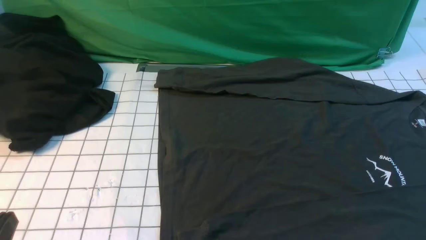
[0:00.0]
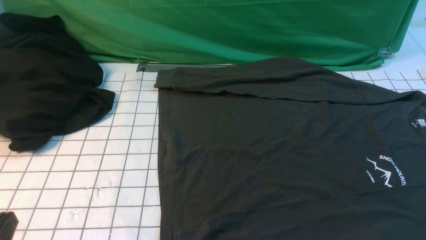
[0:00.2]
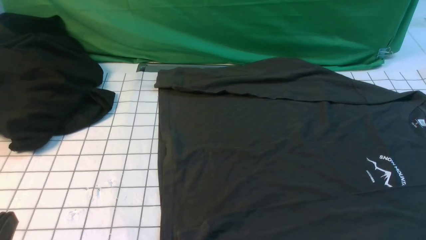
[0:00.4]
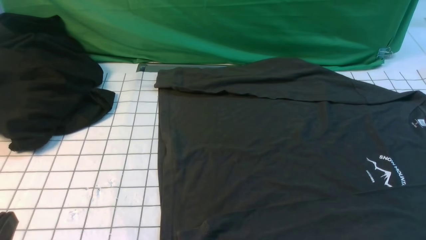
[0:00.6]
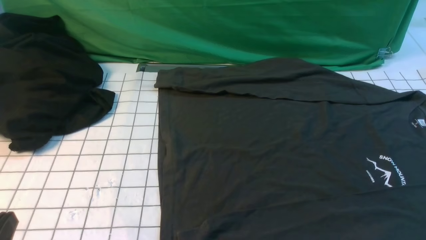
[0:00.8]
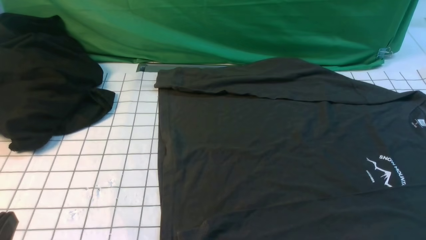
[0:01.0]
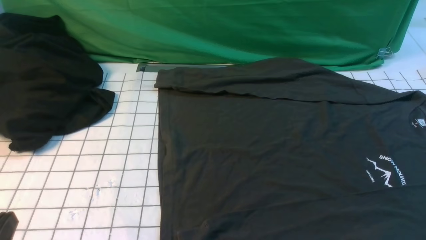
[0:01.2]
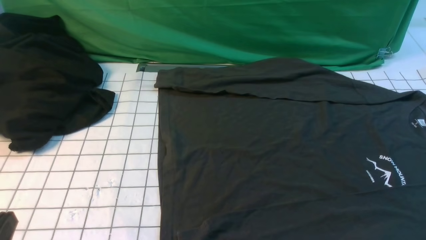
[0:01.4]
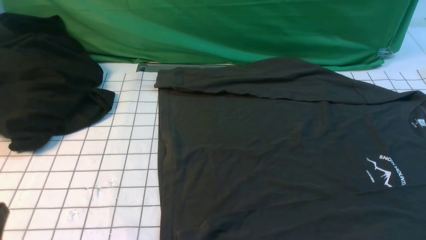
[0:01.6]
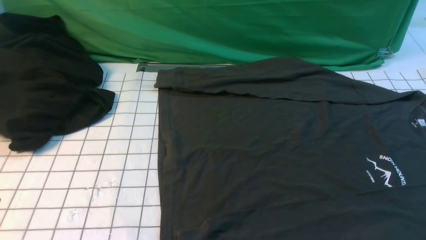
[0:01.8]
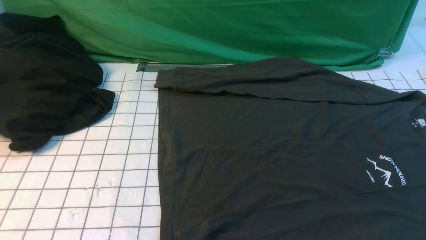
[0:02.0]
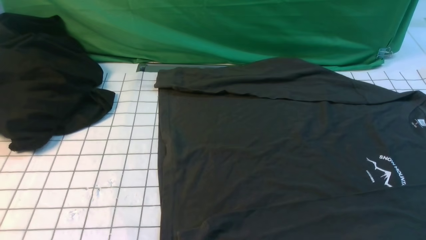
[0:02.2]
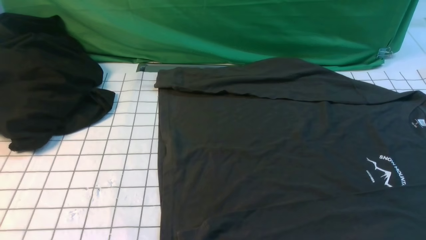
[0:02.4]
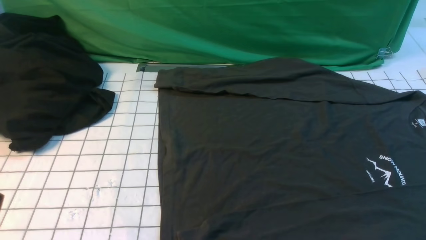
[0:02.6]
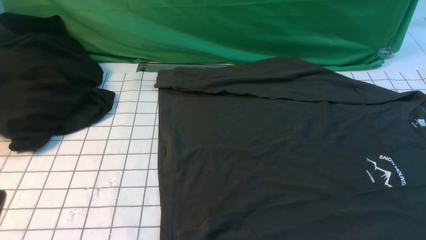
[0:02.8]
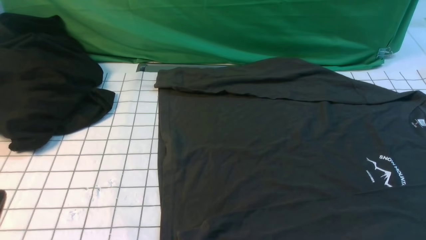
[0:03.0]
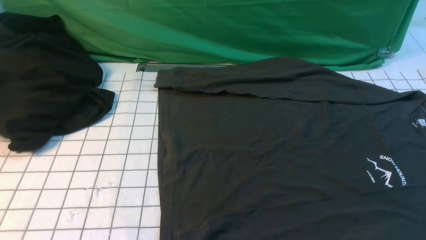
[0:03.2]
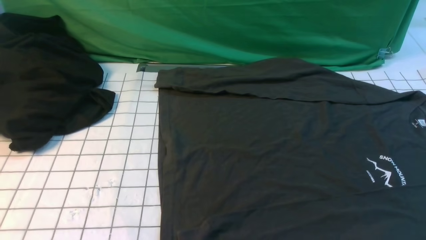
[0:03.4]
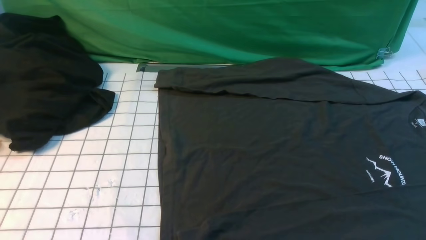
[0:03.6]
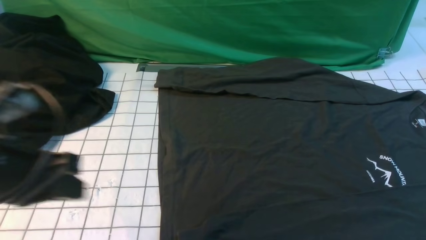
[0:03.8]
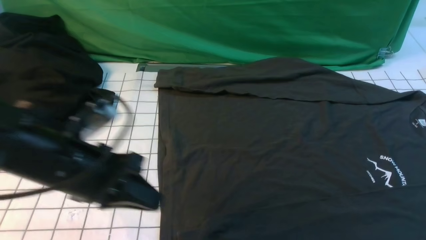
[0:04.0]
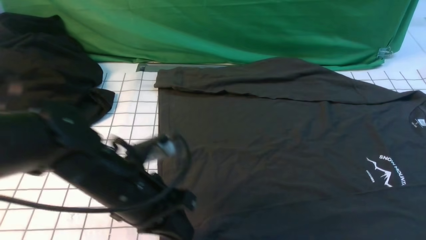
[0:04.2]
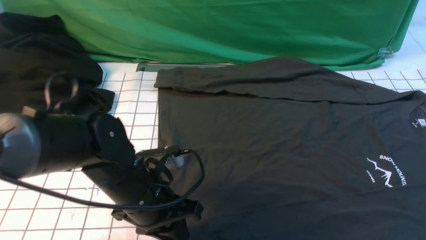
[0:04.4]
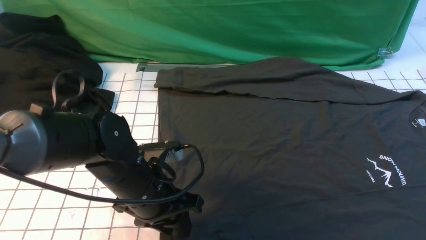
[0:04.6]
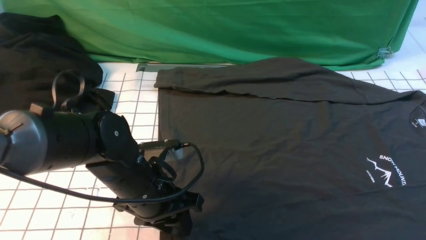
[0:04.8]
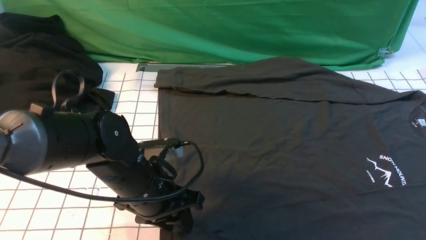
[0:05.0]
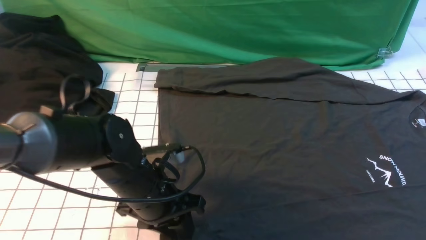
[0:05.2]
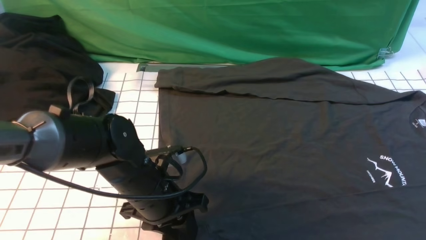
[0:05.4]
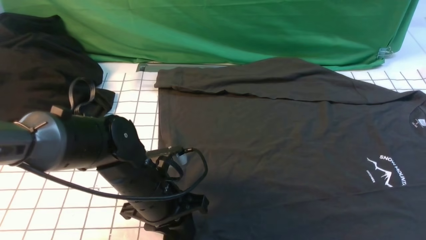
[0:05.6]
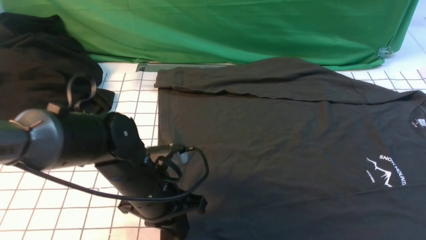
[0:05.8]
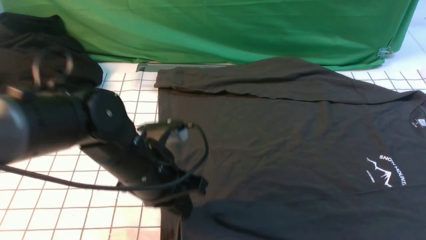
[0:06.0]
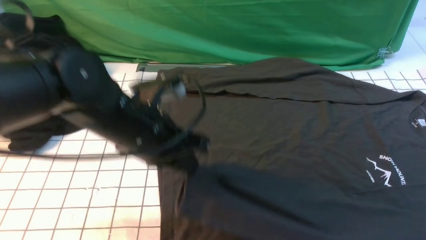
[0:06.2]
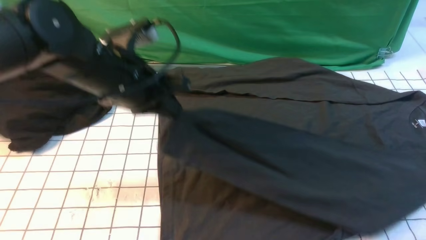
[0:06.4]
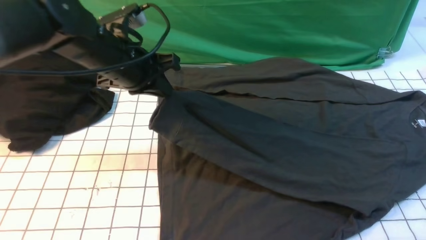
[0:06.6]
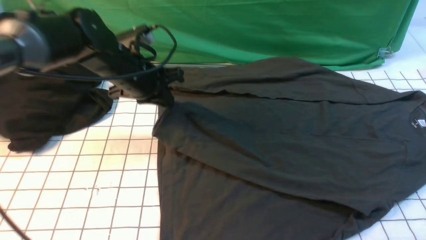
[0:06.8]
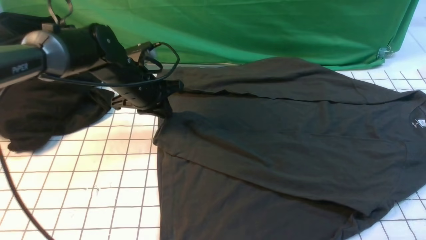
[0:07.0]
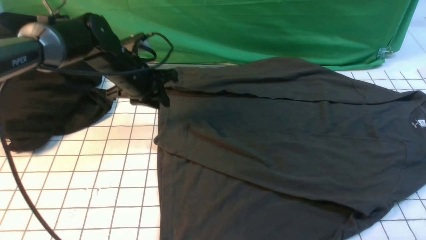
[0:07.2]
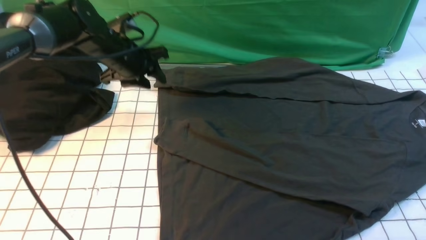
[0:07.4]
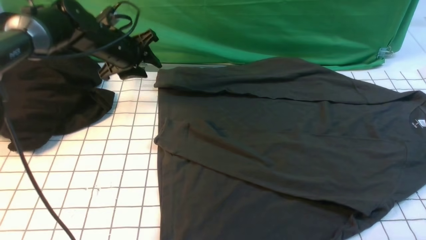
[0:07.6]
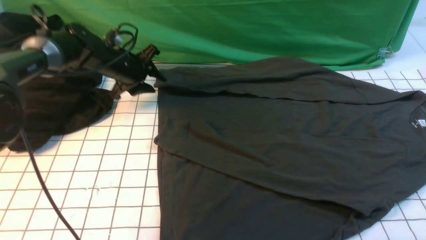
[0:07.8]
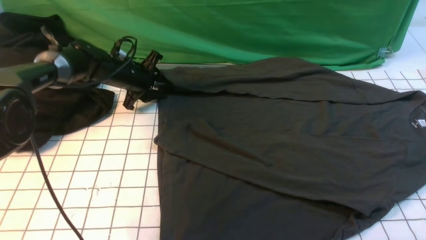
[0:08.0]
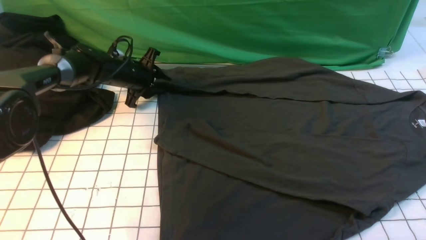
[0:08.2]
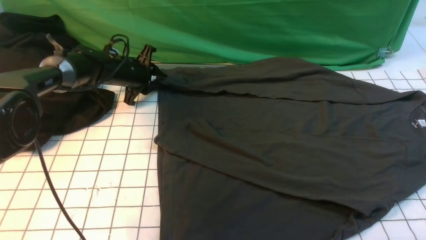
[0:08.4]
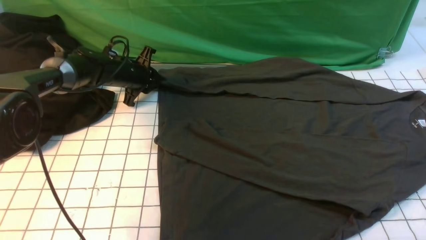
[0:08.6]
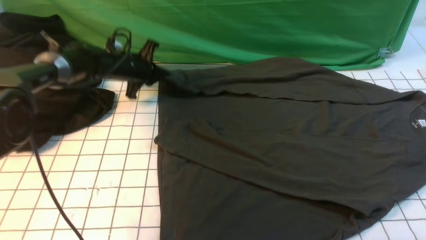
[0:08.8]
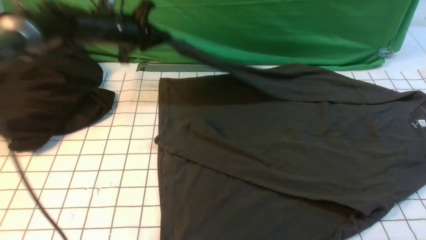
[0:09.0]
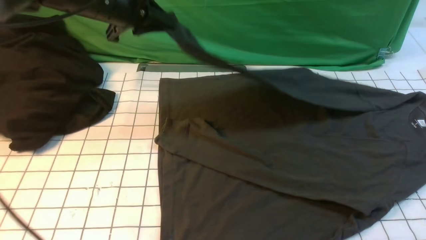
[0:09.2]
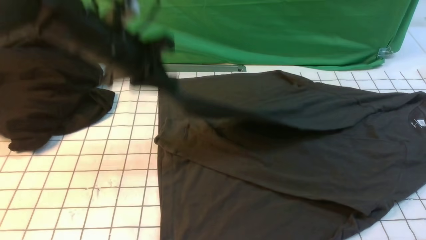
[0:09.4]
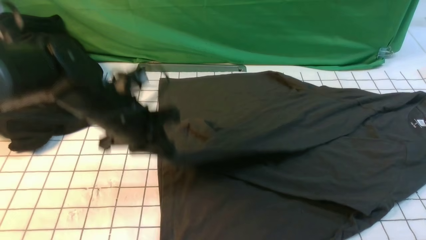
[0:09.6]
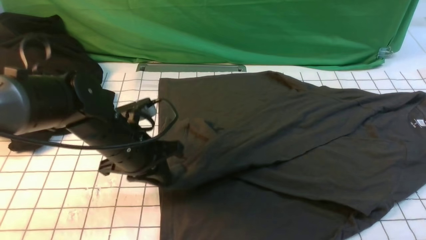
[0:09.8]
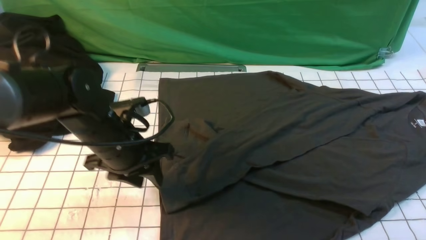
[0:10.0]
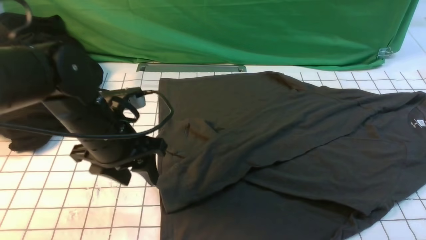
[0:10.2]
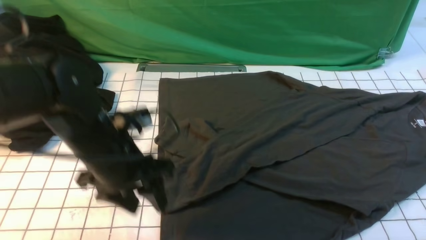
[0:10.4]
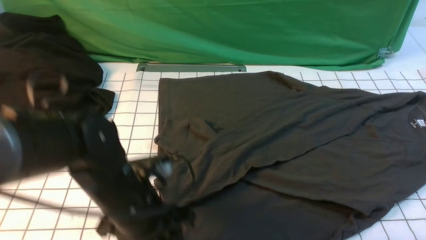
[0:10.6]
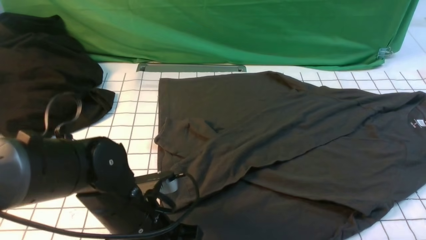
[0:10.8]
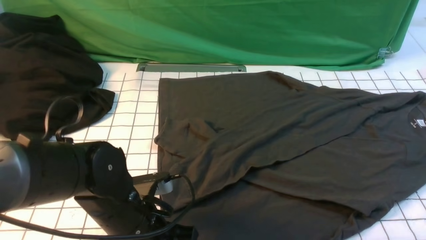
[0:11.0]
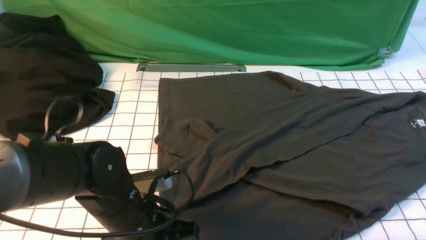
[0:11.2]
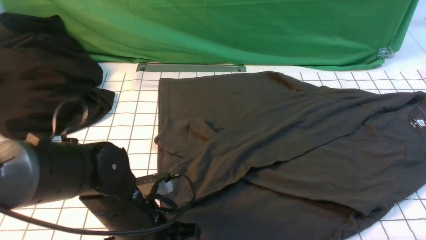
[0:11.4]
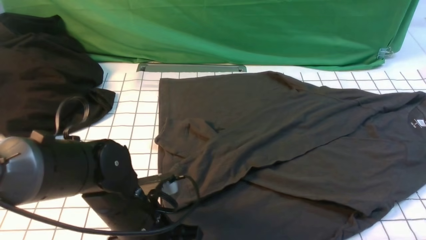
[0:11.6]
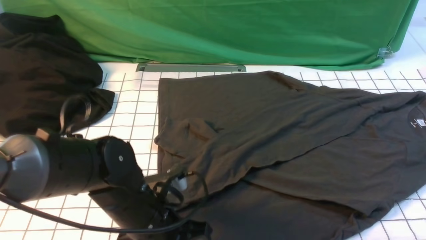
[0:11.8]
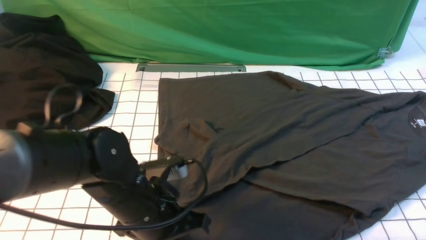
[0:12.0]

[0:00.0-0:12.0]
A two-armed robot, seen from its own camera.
Step, 0:00.0 to 0:05.8: use the left arm to clamp the cuff closest to it.
Step, 0:06.0 to 0:07.0: use the left arm to drag and place the cuff at the centered position on the left edge of the fabric.
Step, 0:07.4 to 0:08.6: use the left arm to clamp the cuff farthest from it.
Step, 0:08.8 to 0:10.0: use the left arm to drag and drop the cuff onto the cuff closest to the left arm.
0:03.0 to 0:04.4: The right gripper travels upward and forward by roughly 10 cm; the left gripper is displaced forward and to the right by approximately 25 cm.
0:04.4 to 0:06.0: The grippers move only a little.
0:06.0 to 0:07.6: The left gripper heads forward and to the left, covering approximately 25 cm, and opens up.
0:07.6 to 0:09.0: The left gripper travels upward by approximately 5 cm, and closes up.
0:09.0 to 0:10.4: The left gripper travels backward by about 25 cm, and opens.
0:10.4 to 0:12.0: The left gripper shifts by some 5 cm, and closes its fingers.

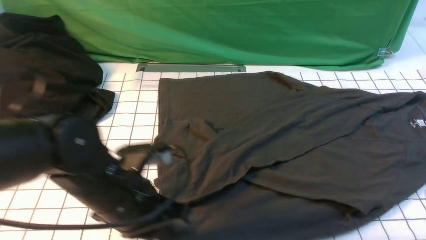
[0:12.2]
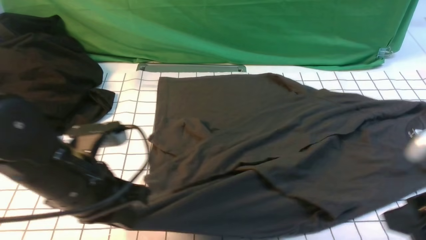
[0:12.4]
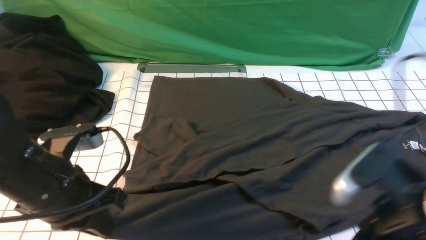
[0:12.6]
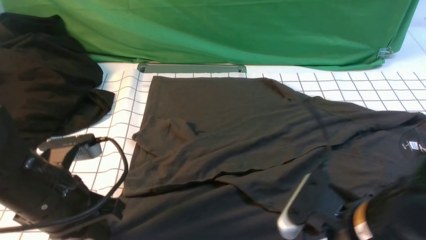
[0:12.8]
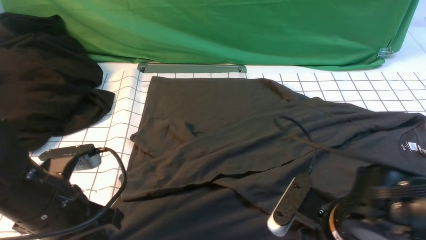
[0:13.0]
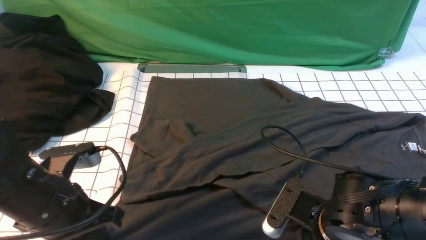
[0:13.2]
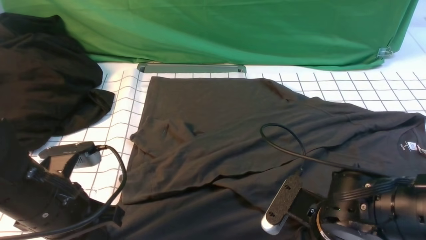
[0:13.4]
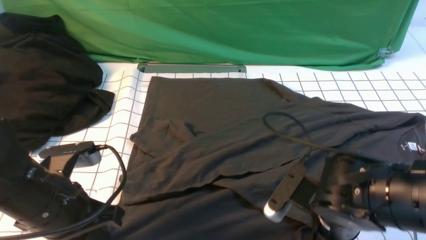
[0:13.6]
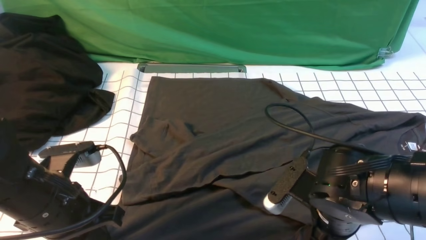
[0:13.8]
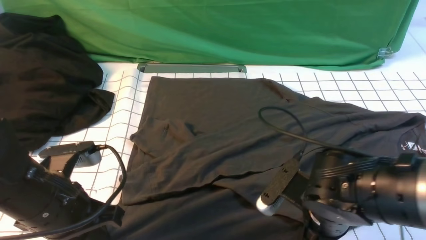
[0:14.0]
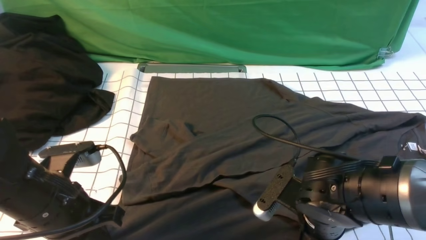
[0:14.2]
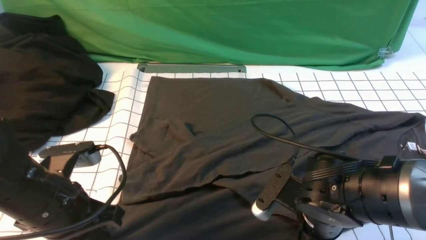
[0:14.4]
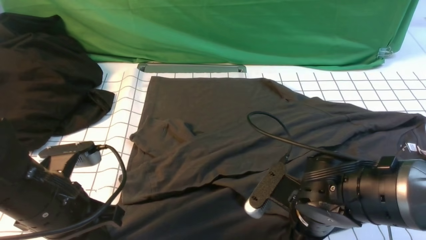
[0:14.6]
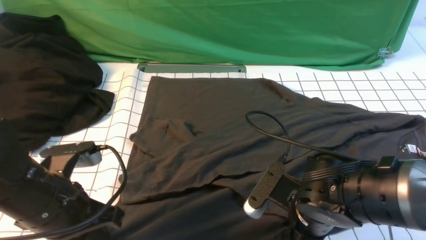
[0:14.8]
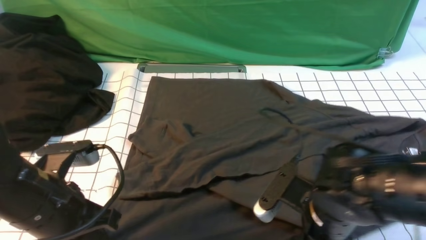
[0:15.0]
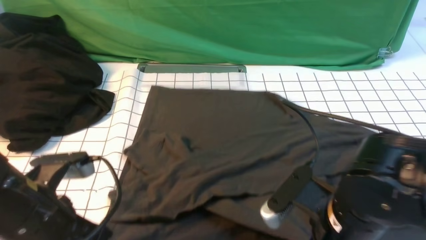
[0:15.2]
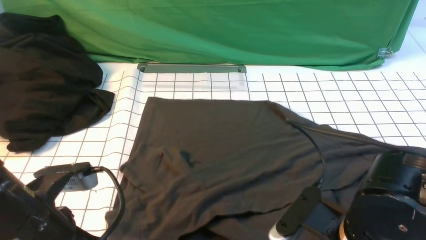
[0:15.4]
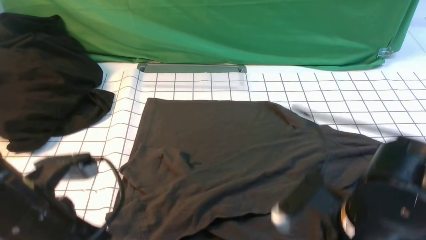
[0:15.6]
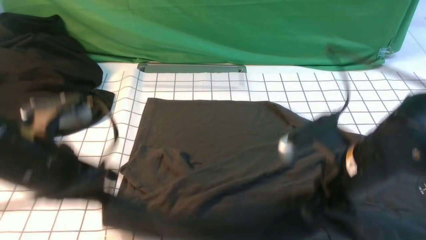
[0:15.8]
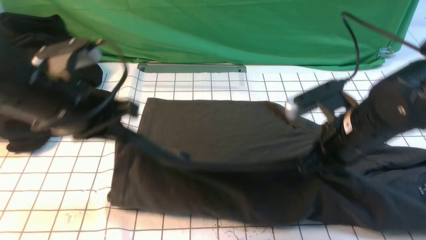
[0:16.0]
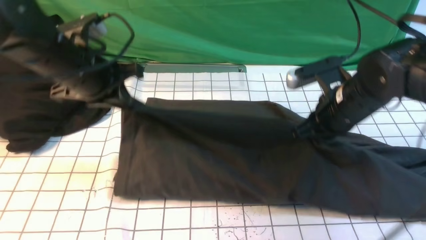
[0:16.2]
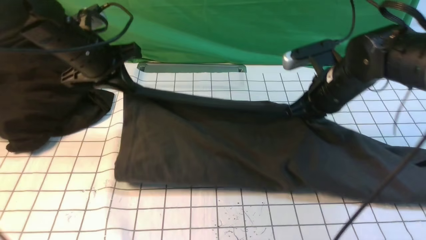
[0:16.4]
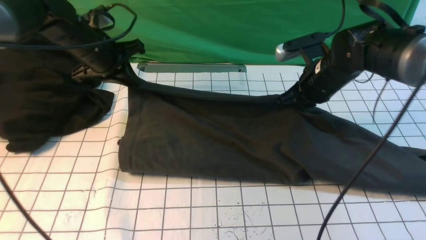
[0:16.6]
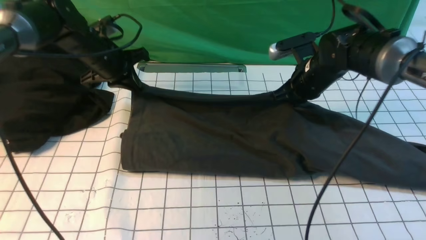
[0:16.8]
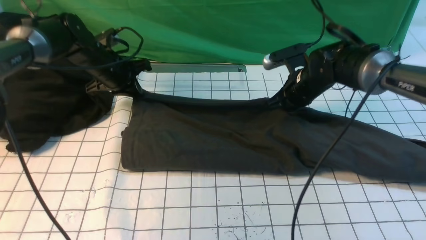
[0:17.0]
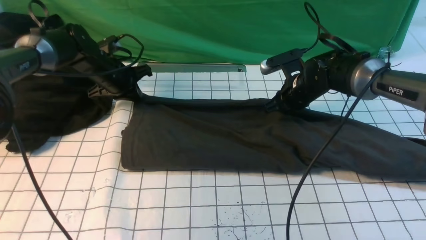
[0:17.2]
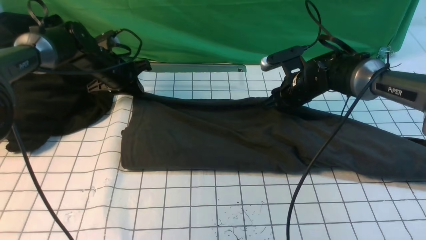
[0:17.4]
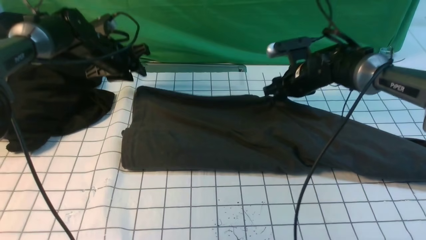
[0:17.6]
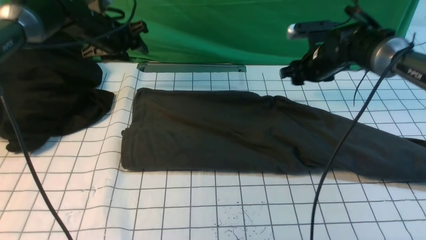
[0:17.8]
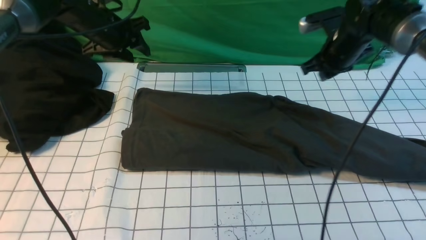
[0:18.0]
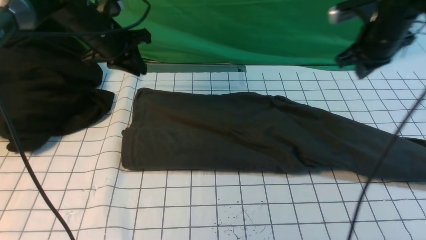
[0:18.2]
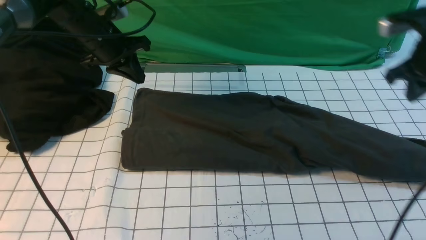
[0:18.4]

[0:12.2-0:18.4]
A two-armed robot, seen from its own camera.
Step, 0:12.2 to 0:15.2: use both arms simultaneously to clamp the lower edge of the clothing fabric.
Step, 0:15.4 to 0:17.6: use both arms to drag the lower edge of the fabric forward and fold it over the upper edge.
0:12.2 to 0:13.8: The left gripper goes roughly 5 cm to the left, while the right gripper moves to the left and downward, roughly 20 cm, and opens up.
0:13.8 to 0:15.4: The right gripper changes place by roughly 5 cm, and closes up.
0:15.4 to 0:16.8: Both grippers travel together forward, roughly 30 cm.
0:16.8 to 0:18.4: The right gripper moves to the right and upward, some 20 cm, and opens and closes again; the left gripper opens, then closes again.
